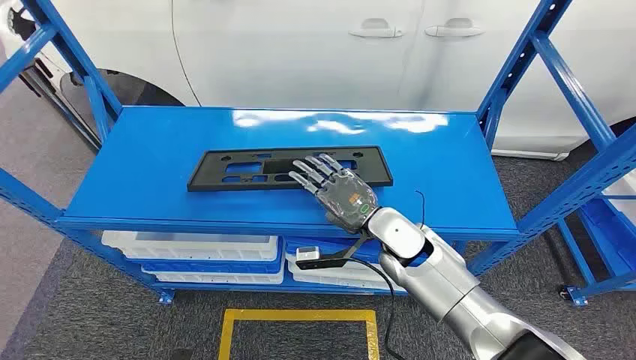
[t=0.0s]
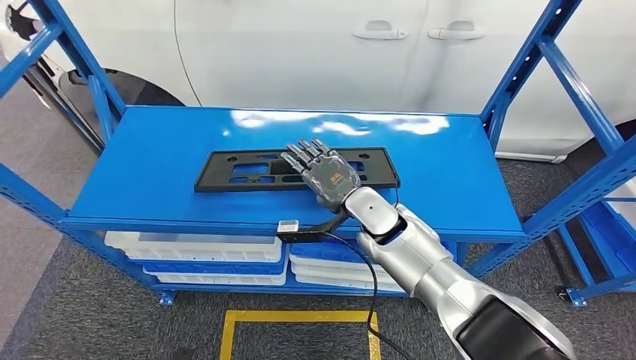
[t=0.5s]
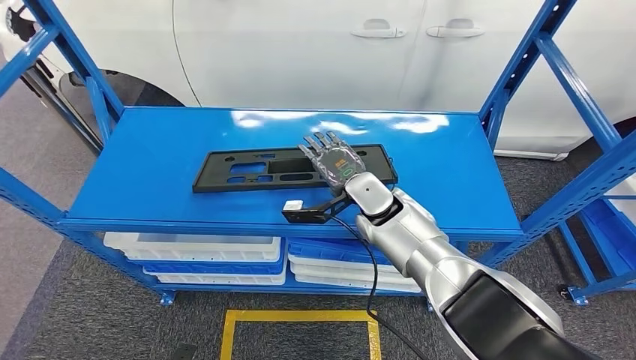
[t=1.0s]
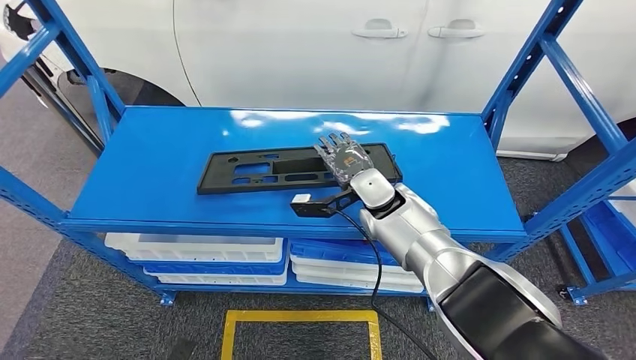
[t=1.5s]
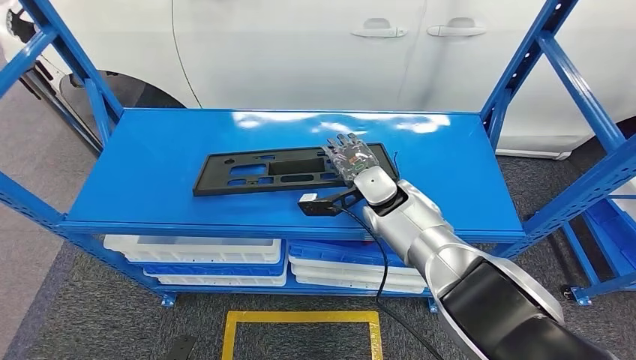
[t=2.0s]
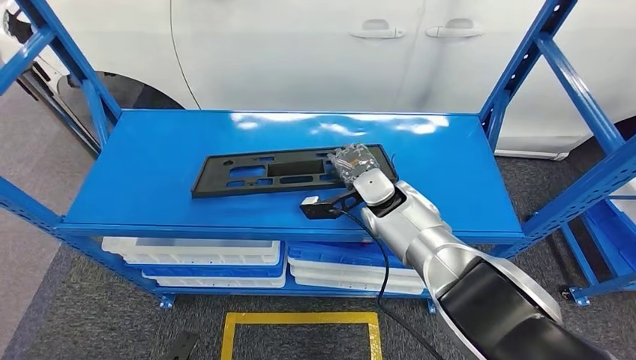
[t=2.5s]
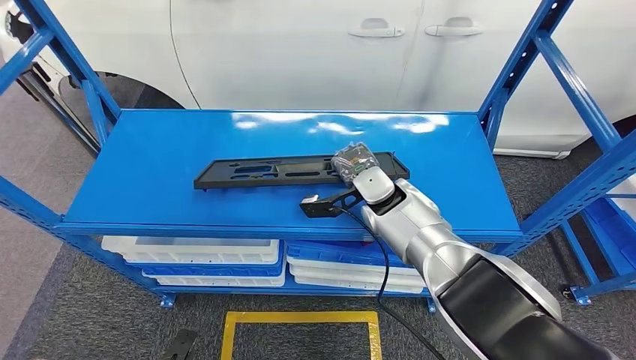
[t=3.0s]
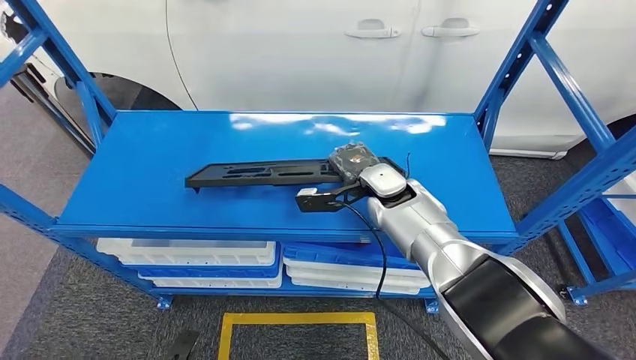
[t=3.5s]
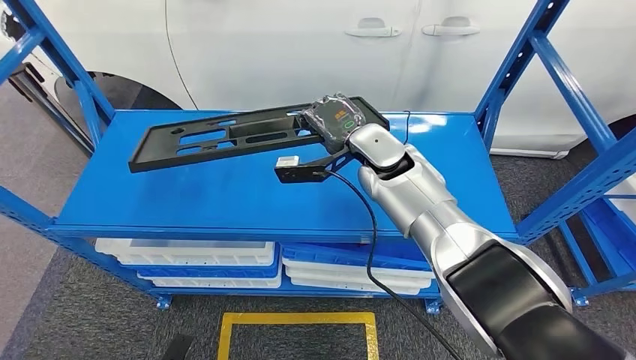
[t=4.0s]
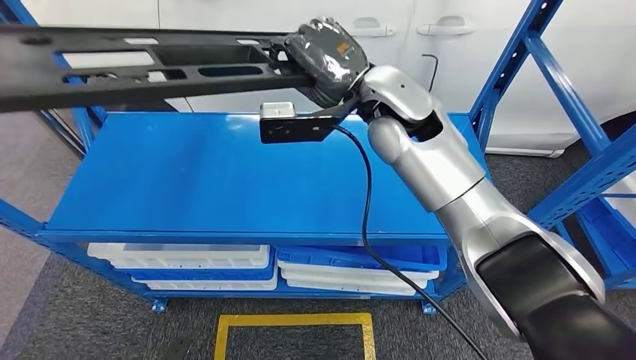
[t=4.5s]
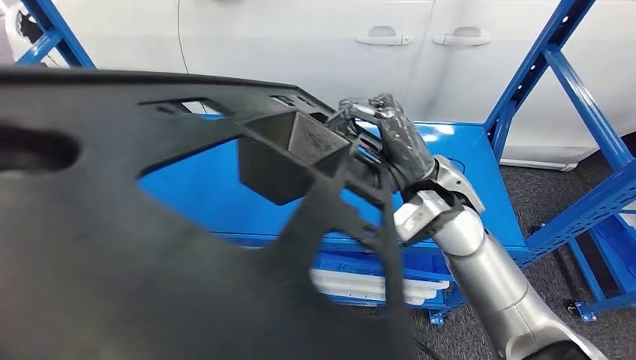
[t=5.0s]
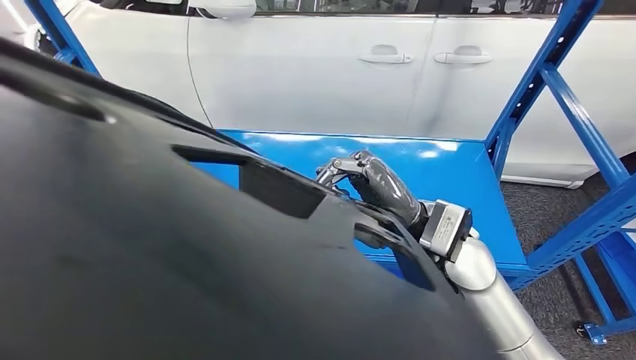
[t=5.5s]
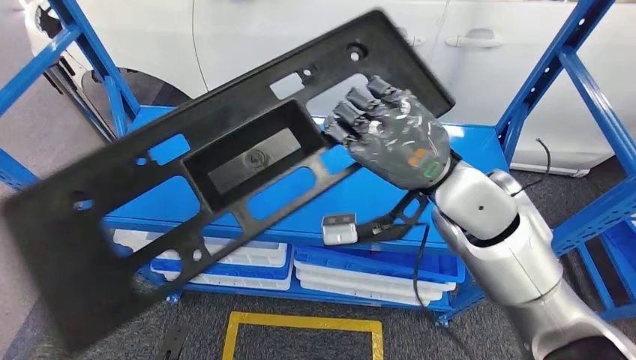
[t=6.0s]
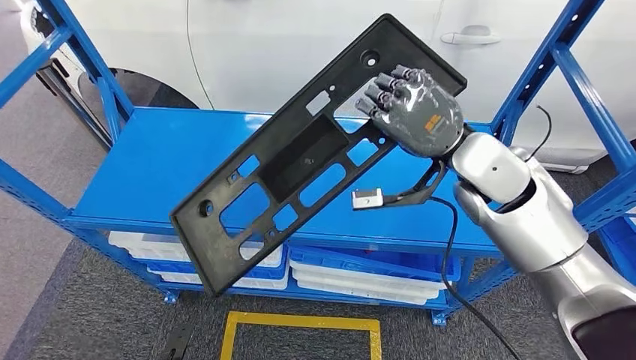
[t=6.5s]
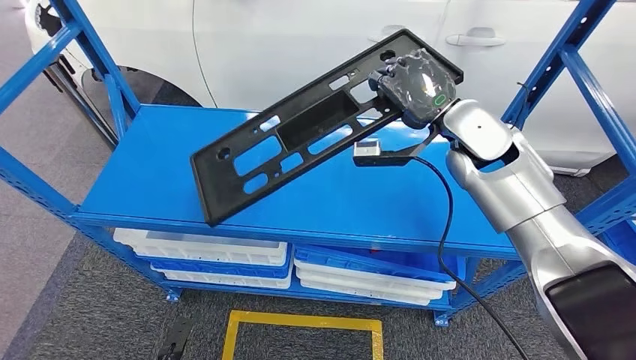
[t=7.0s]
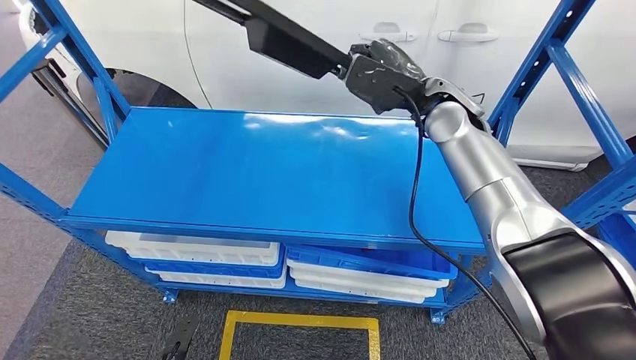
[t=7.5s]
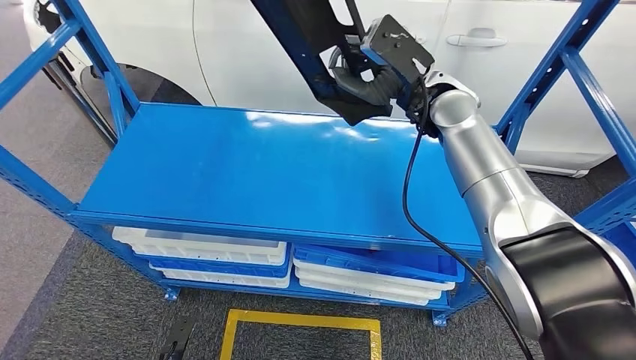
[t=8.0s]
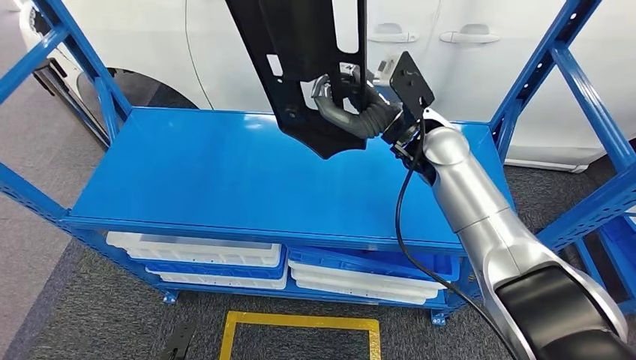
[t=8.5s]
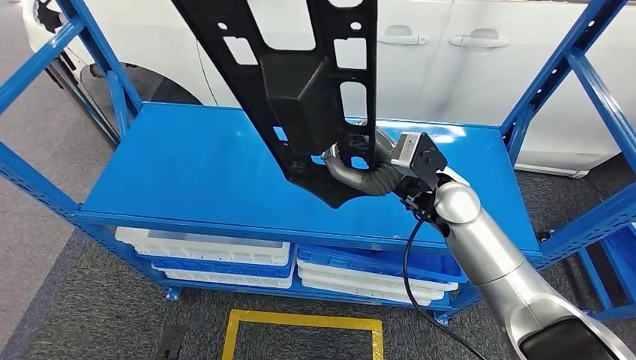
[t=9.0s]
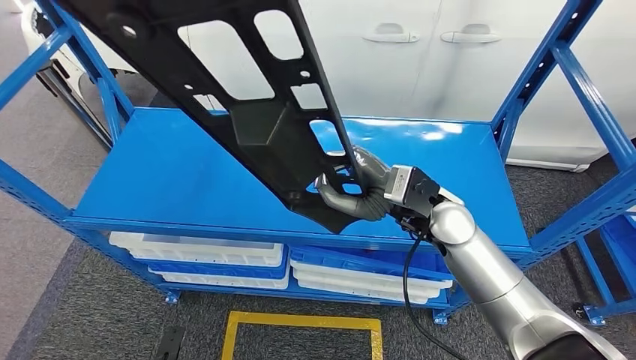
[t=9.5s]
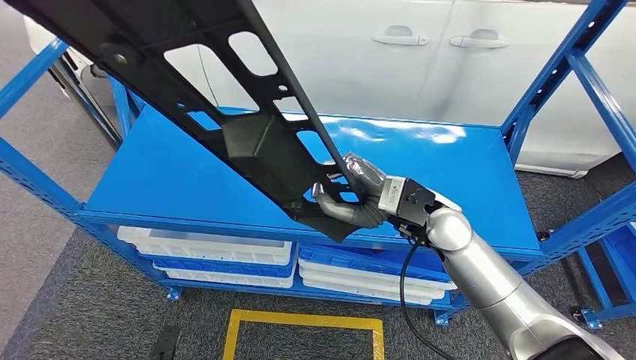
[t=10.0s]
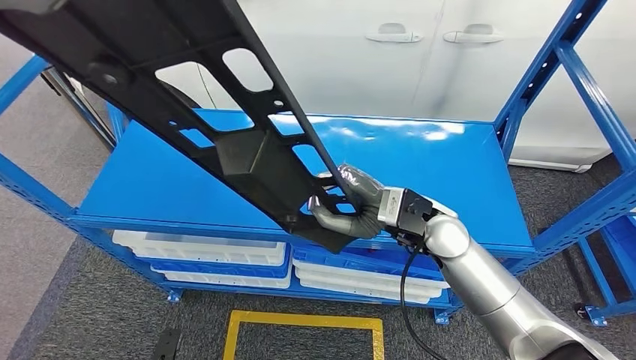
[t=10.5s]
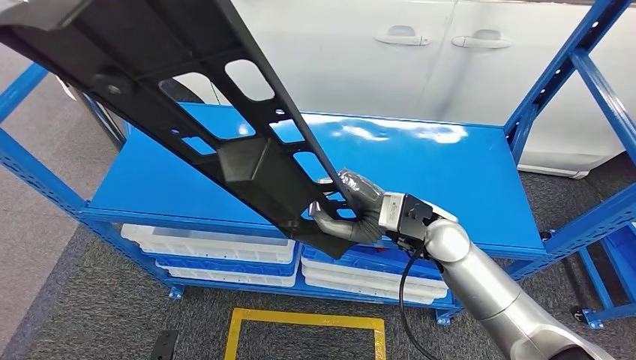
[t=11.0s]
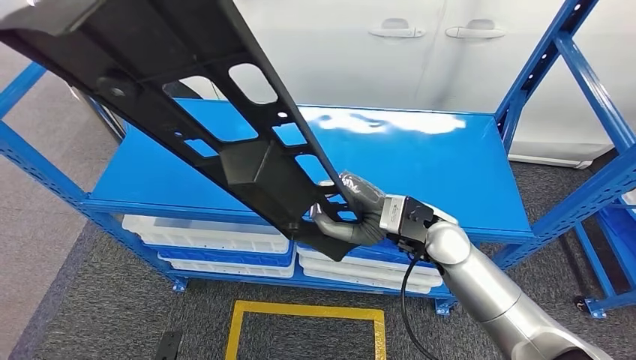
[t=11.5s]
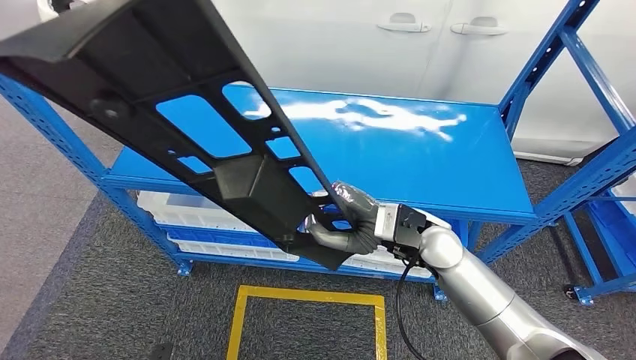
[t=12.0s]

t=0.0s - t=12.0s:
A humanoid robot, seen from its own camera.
Step, t=0.0s - t=5.0s: Pick up the large material from the shelf.

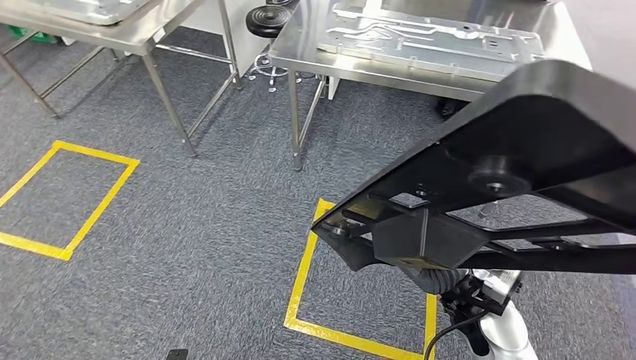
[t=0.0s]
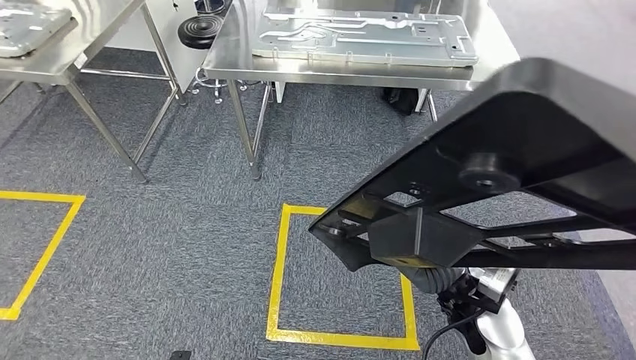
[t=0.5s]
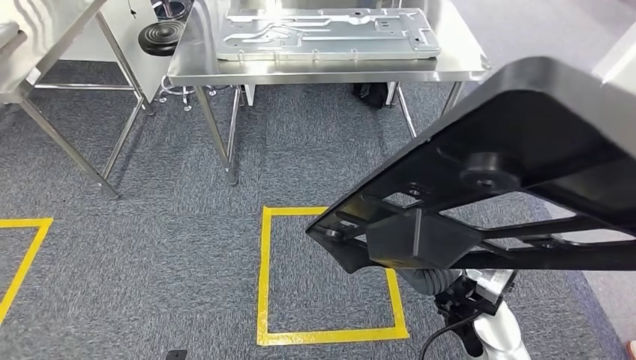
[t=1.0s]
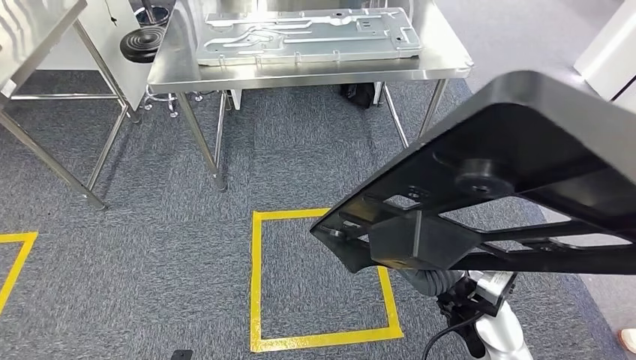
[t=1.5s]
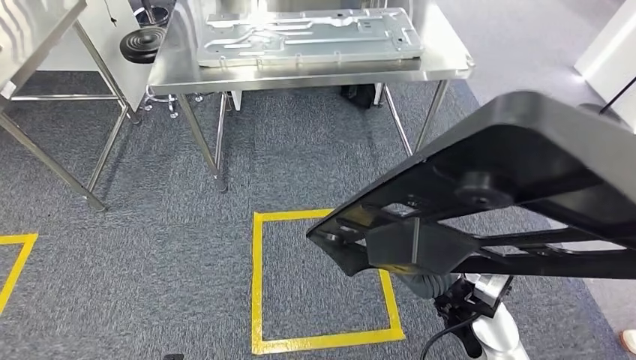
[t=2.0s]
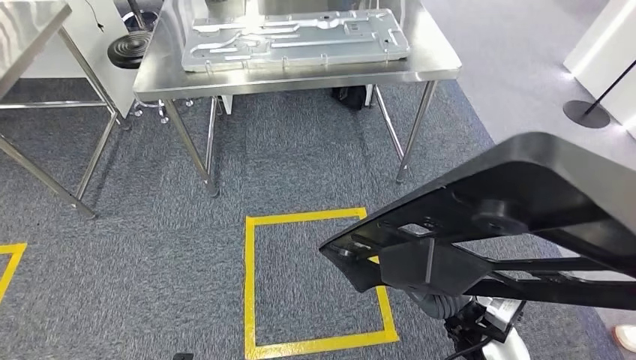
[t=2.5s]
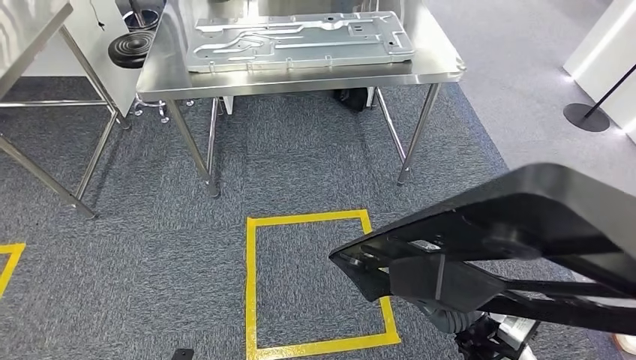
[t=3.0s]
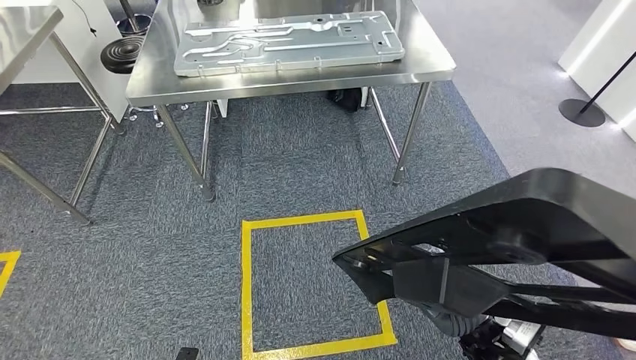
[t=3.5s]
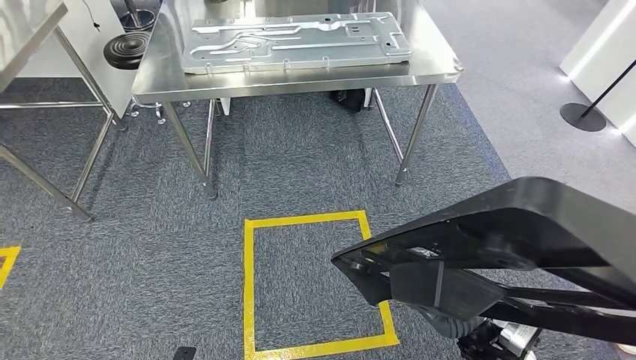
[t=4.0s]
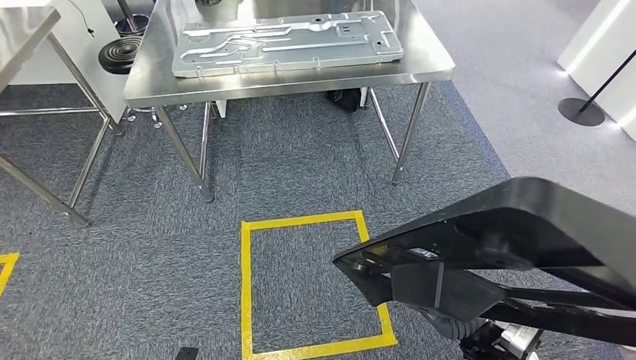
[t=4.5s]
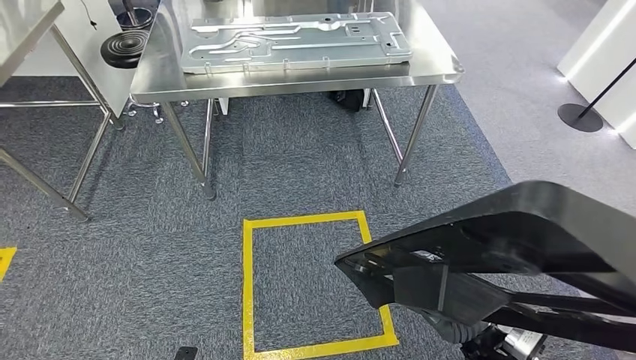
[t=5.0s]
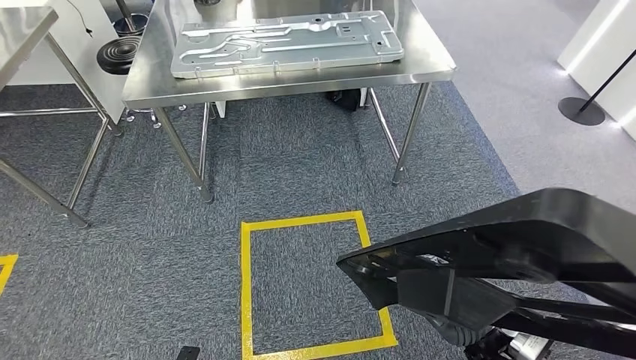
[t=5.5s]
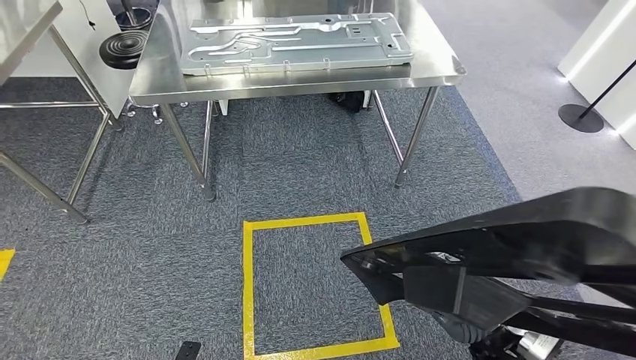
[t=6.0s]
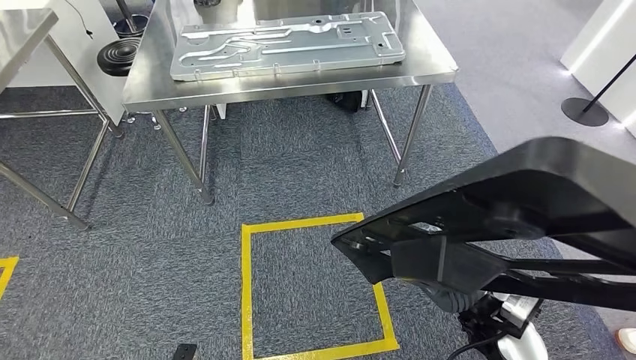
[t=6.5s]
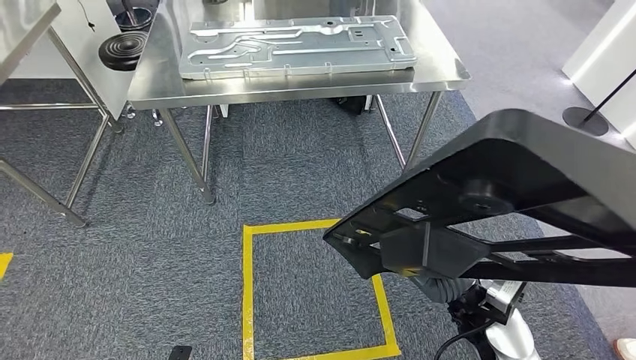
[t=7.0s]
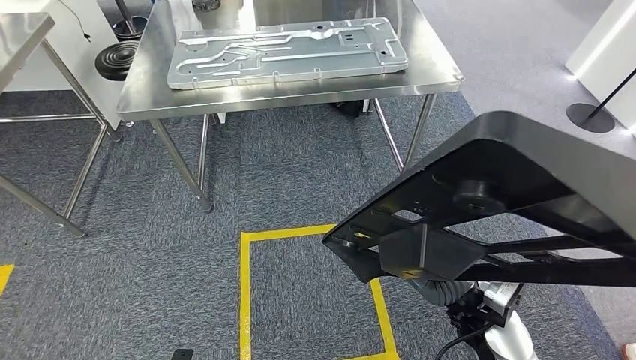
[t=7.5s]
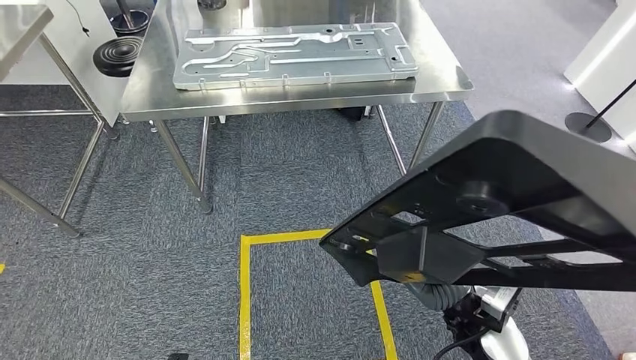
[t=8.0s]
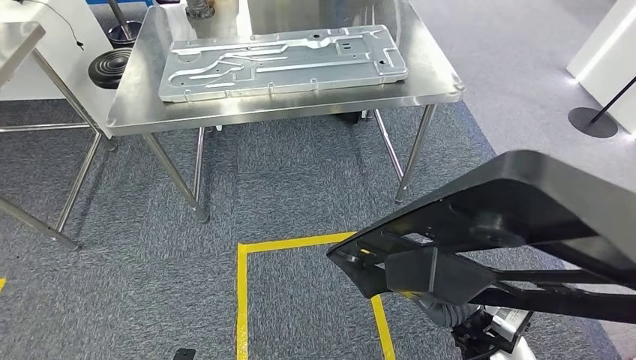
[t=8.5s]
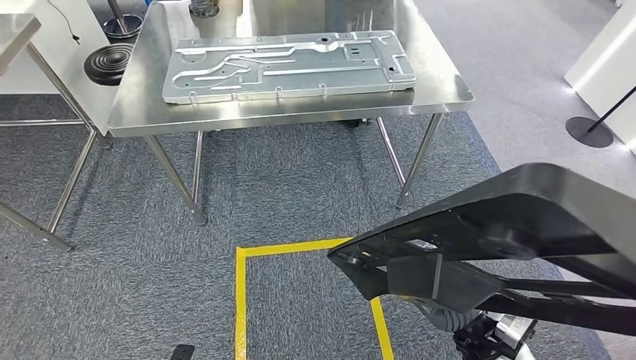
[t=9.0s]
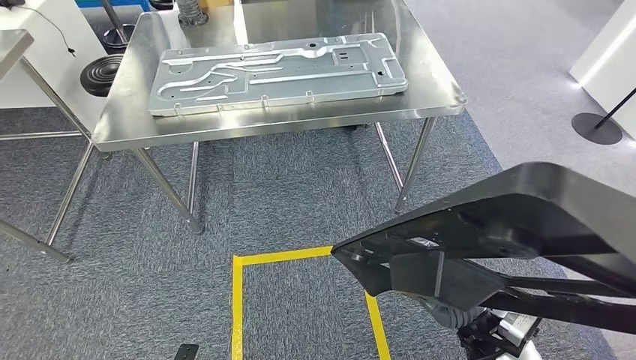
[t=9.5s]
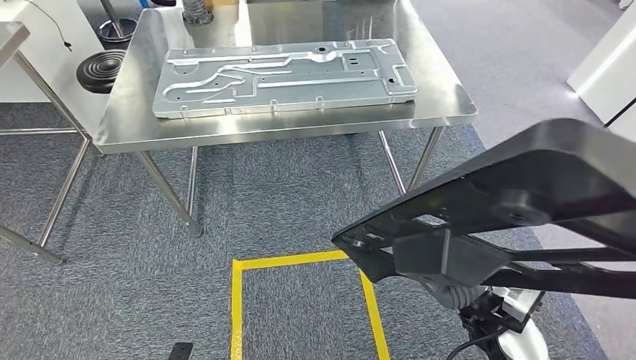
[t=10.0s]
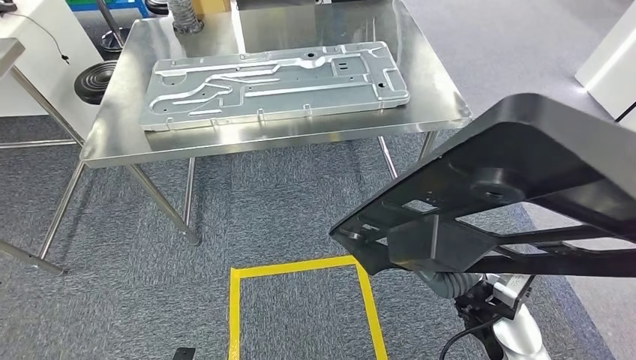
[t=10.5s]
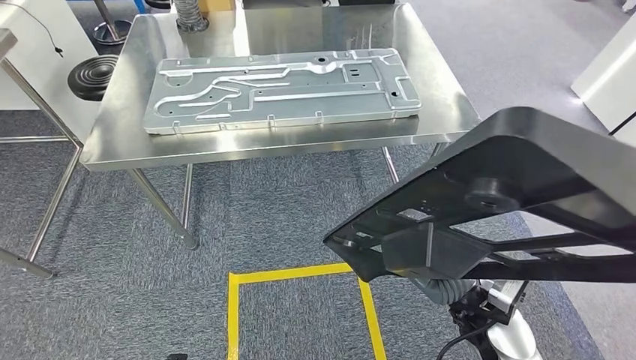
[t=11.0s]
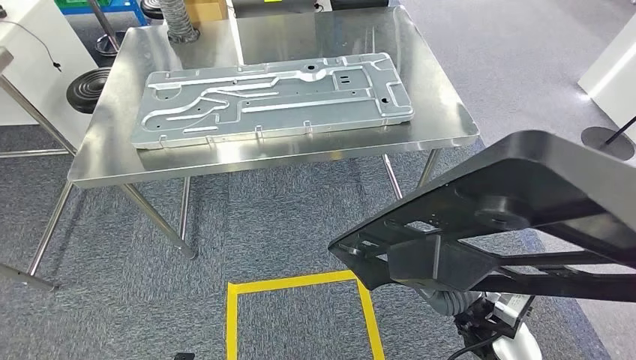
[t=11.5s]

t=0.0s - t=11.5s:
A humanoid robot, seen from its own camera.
t=4.0s - t=6.0s: The hands make only small movements.
